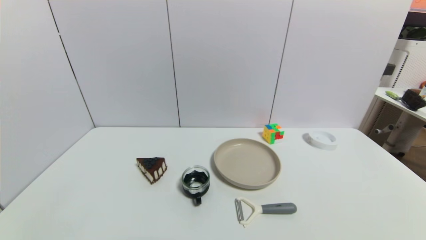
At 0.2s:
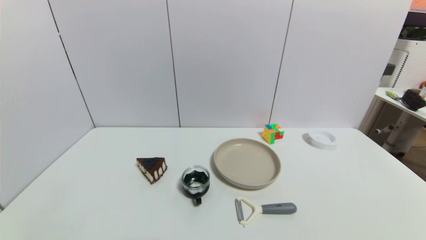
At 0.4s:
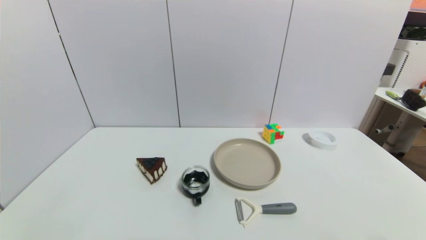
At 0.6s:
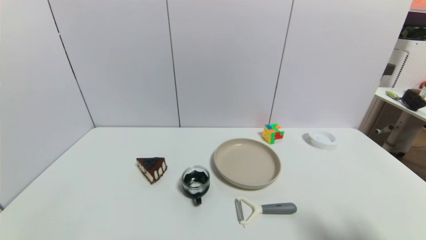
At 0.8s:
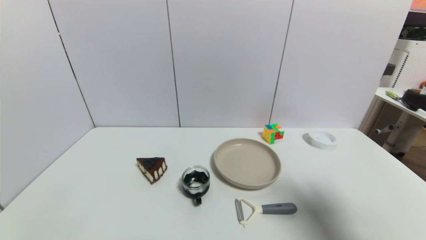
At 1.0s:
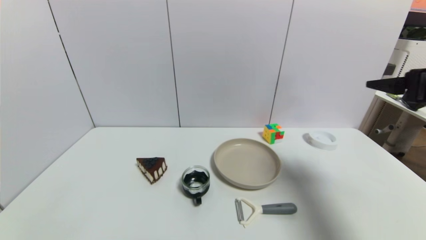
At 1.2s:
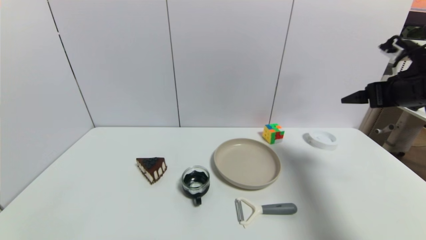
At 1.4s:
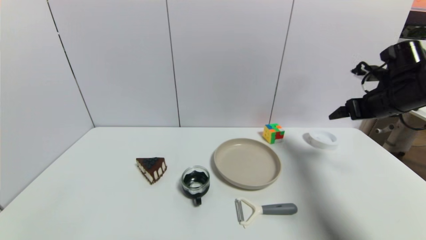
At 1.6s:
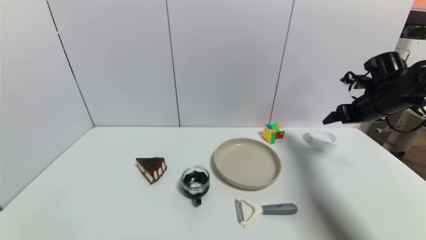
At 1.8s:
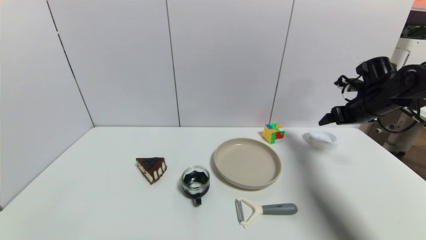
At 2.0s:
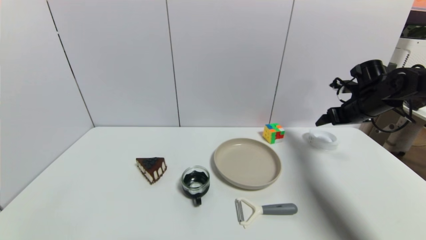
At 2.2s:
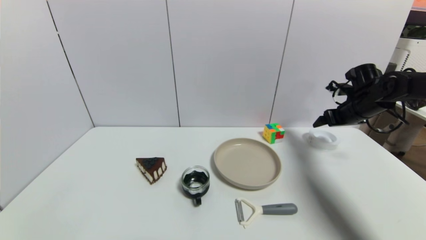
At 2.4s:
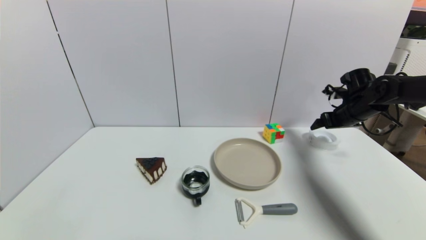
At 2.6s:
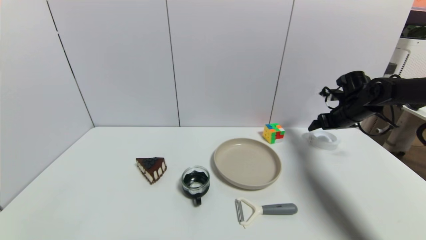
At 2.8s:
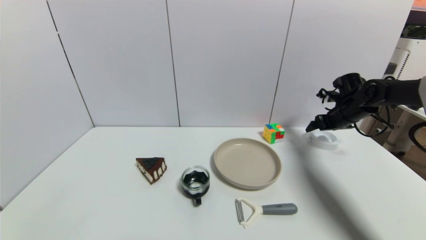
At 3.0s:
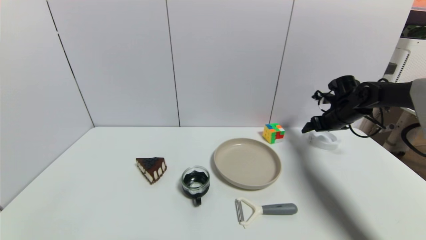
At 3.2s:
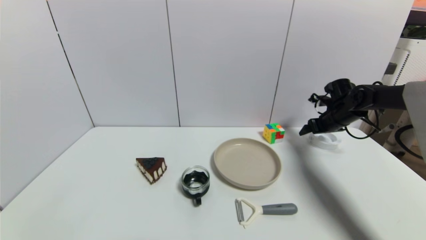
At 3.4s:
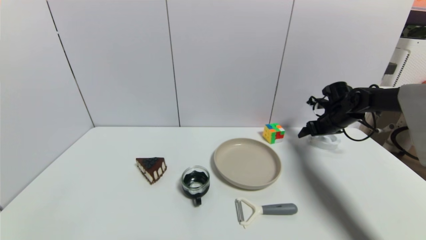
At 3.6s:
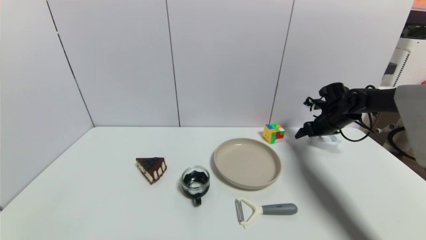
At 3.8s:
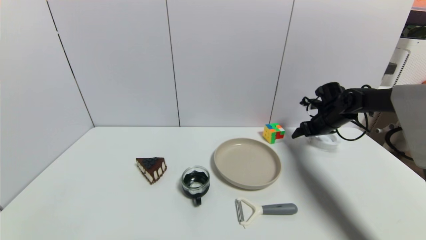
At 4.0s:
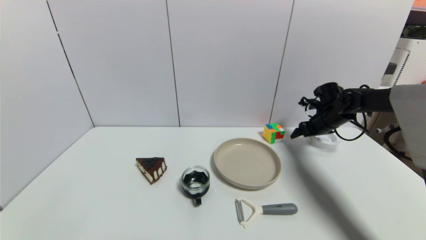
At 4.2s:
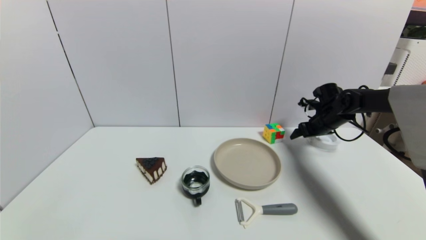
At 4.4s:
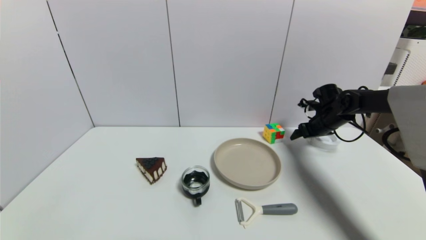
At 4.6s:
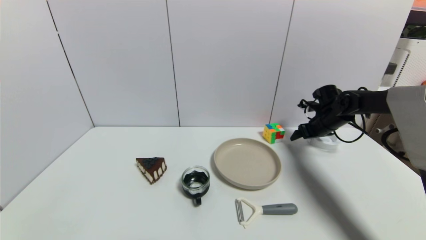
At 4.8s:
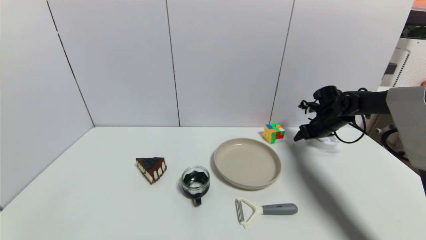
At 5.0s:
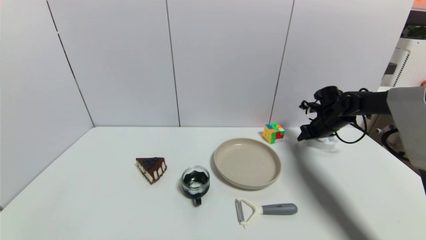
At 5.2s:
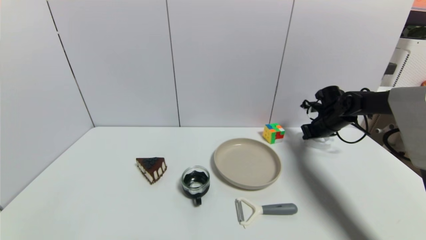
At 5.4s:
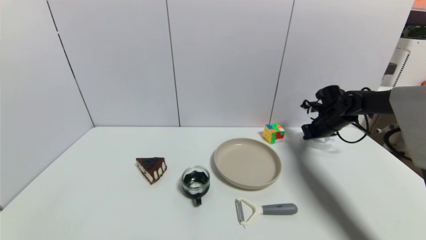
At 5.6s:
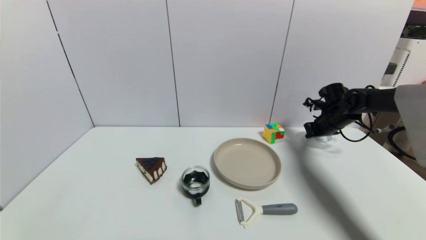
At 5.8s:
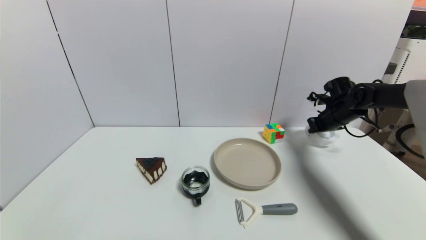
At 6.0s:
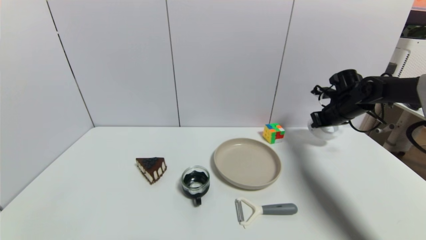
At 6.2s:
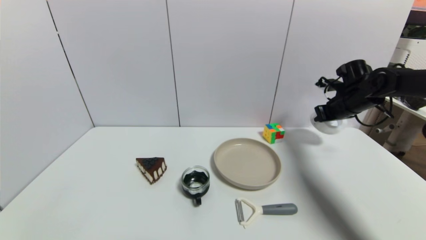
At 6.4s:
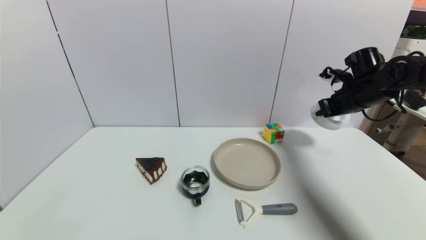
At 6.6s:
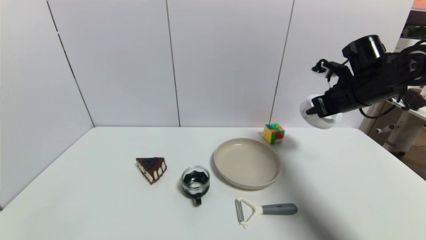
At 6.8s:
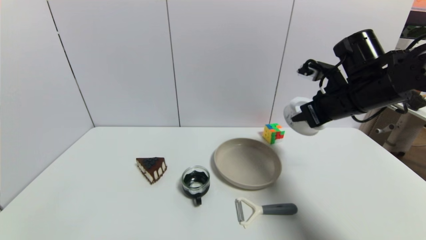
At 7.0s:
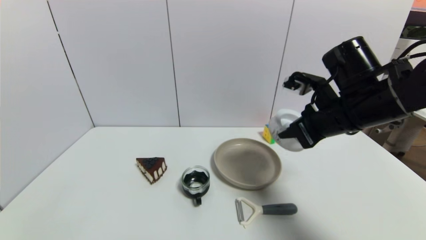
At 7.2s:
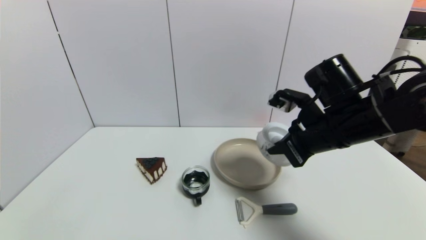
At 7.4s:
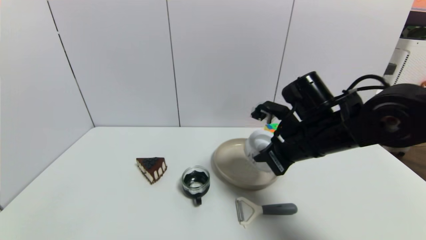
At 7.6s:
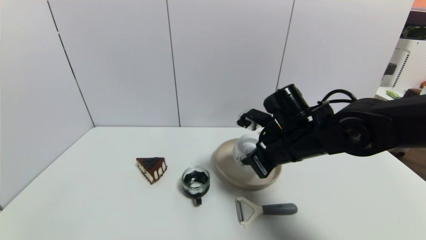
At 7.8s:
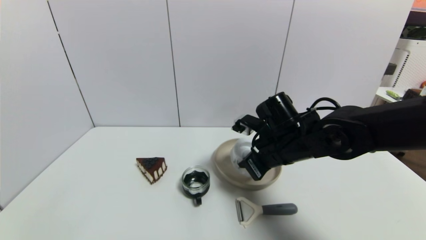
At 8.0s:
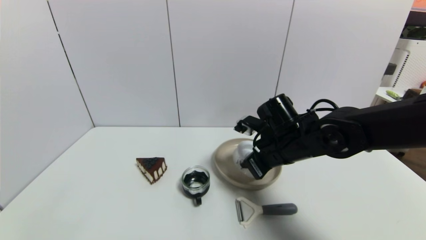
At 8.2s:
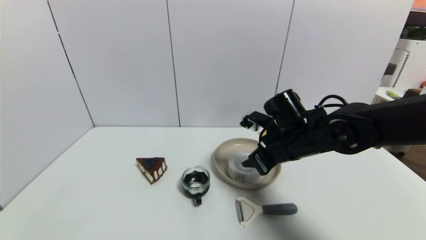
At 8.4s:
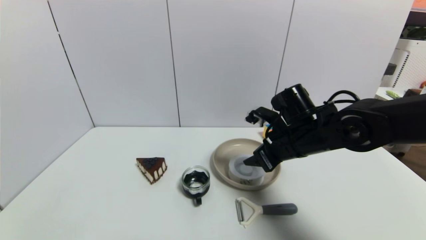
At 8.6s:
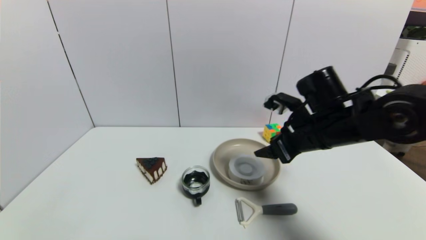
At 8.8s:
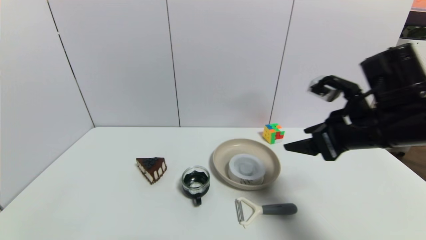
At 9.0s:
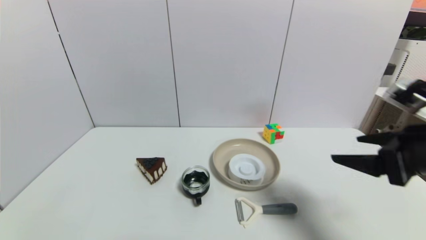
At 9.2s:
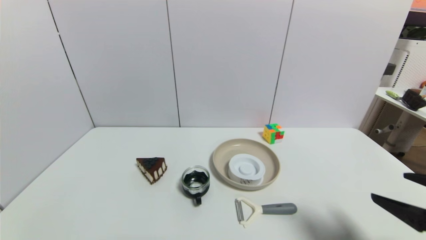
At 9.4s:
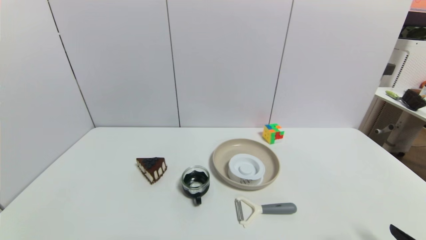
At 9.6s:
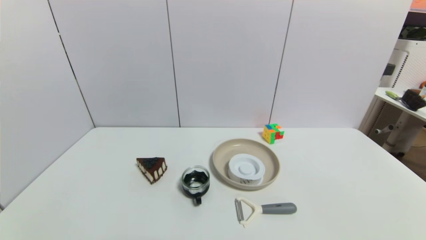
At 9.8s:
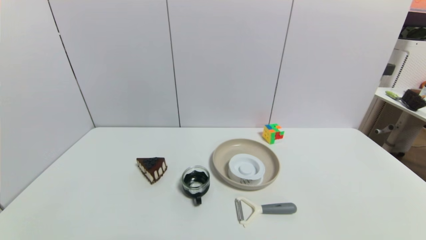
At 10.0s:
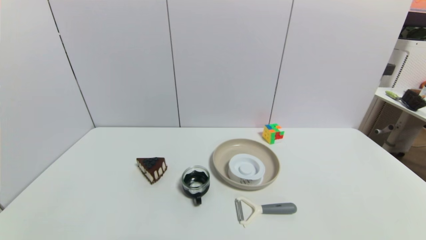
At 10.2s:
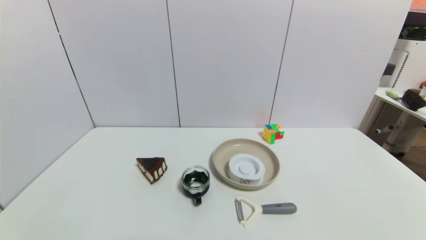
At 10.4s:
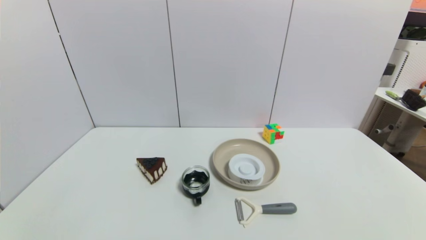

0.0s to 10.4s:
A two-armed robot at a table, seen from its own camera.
Task of the whole recording: use a gripper to pick the target object and place on the brown plate.
Step, 0.0s to 5.4s: Grasp the tape with the right gripper.
Step, 5.6s to 8.4s: Place the tape on the brown plate with the right gripper.
0.0s to 1.4s: The right gripper moves forward and upward, about 40 cm.
1.4s to 3.0s: The right gripper travels forward and downward by roughly 15 cm.
3.0s to 4.4s: The grippers make only small movements.
4.4s to 6.0s: The right gripper shifts about 5 cm upward, and closes up.
6.0s to 7.4s: The right gripper goes some 25 cm to the left and backward.
7.4s to 9.0s: The right gripper is displaced to the right and backward by approximately 15 cm, and opens its fingers.
9.0s to 10.4s: The right gripper goes roughly 25 cm backward and downward.
